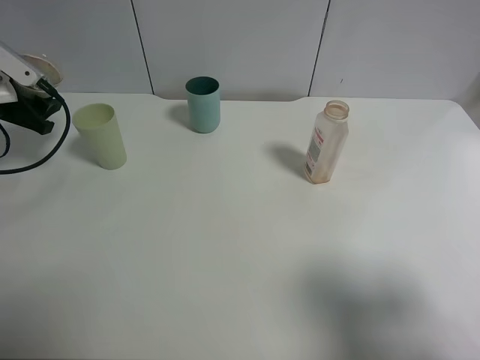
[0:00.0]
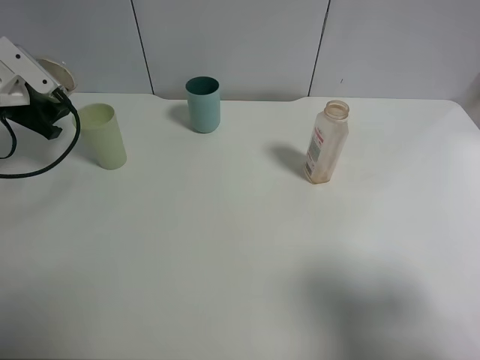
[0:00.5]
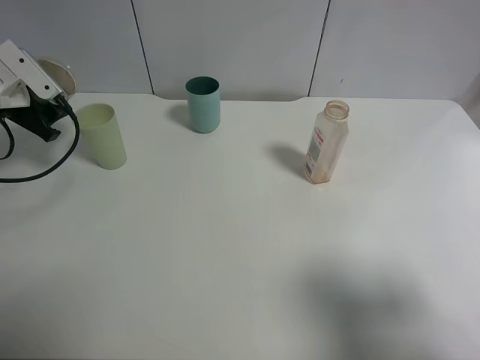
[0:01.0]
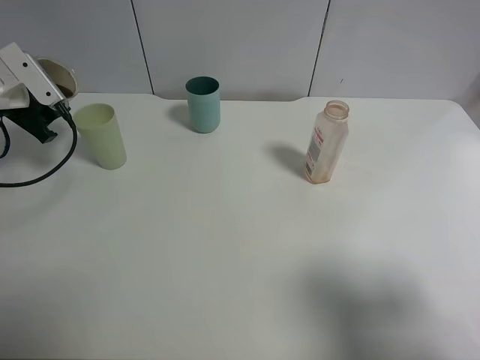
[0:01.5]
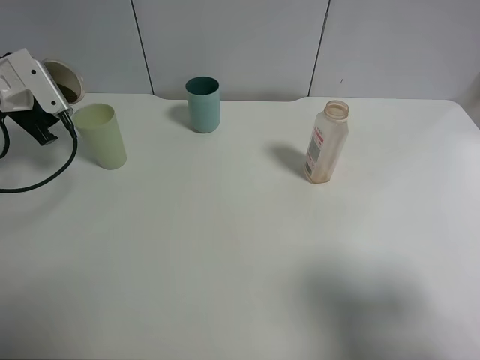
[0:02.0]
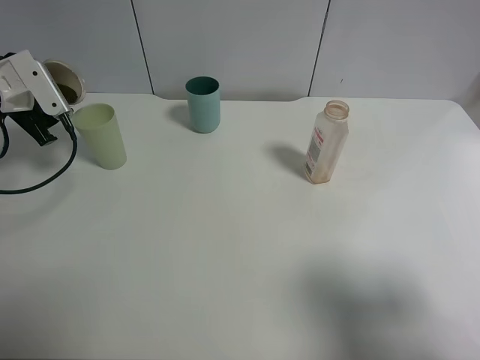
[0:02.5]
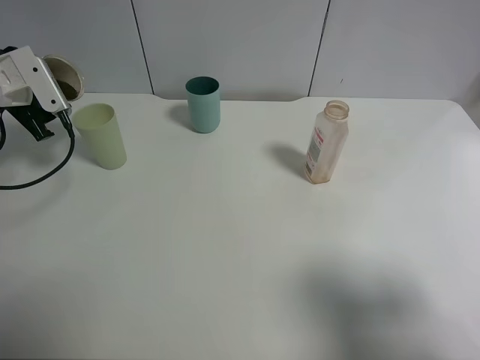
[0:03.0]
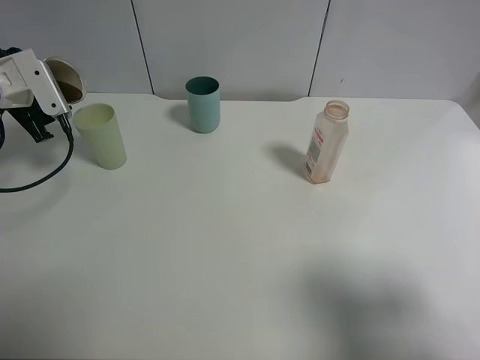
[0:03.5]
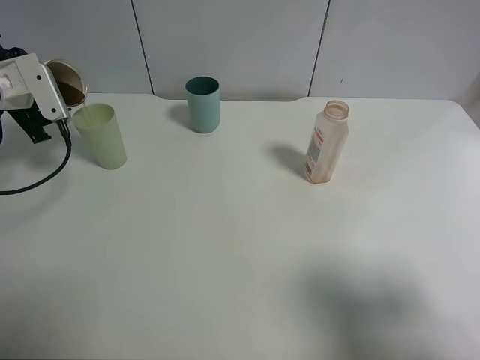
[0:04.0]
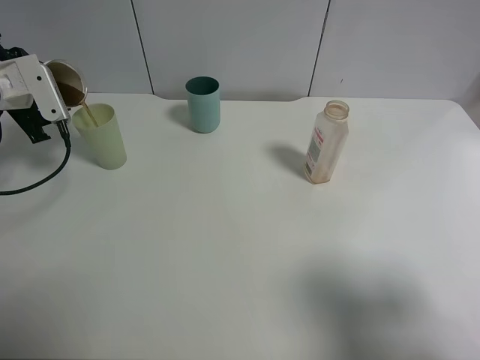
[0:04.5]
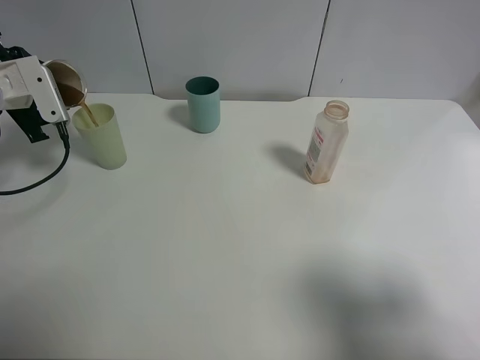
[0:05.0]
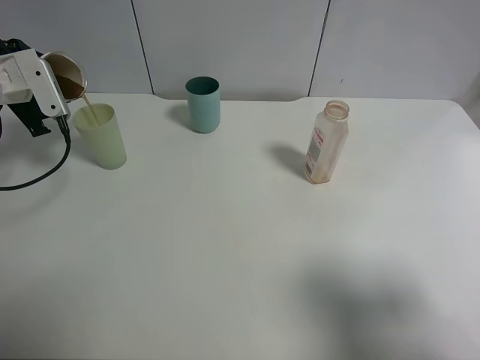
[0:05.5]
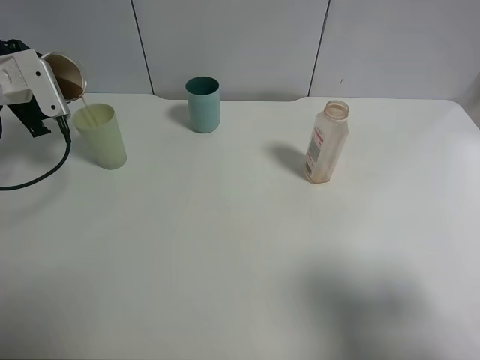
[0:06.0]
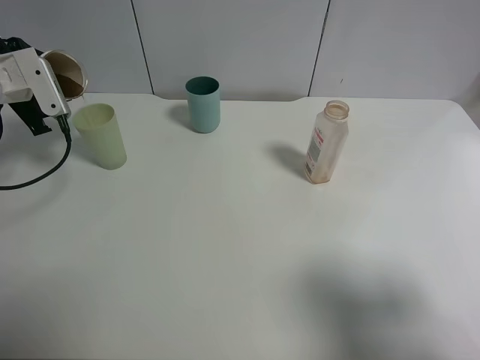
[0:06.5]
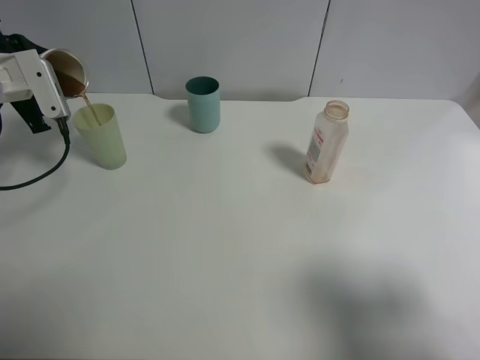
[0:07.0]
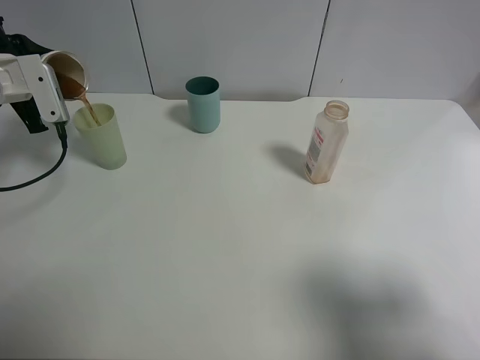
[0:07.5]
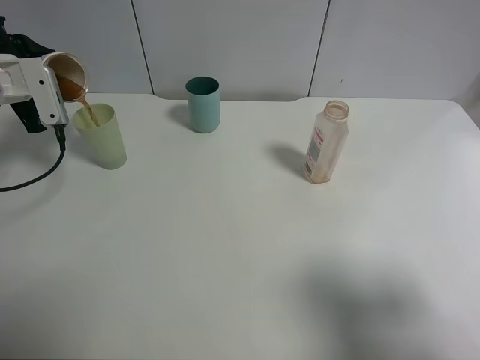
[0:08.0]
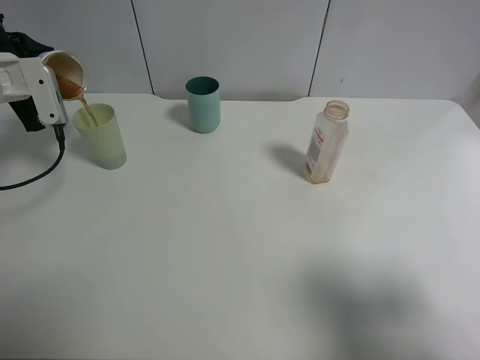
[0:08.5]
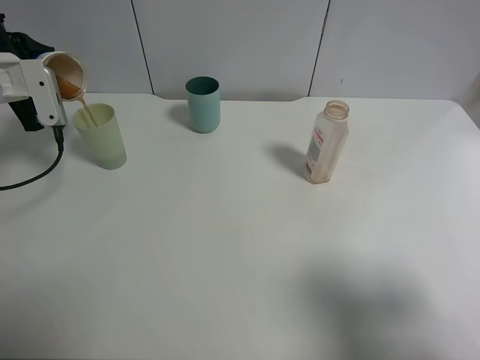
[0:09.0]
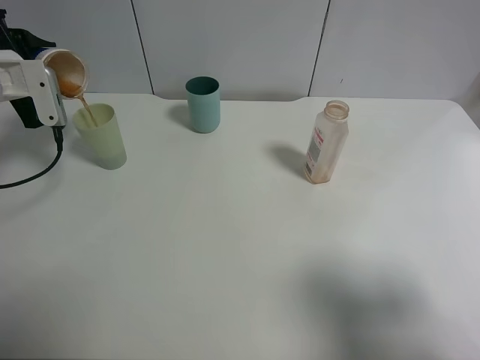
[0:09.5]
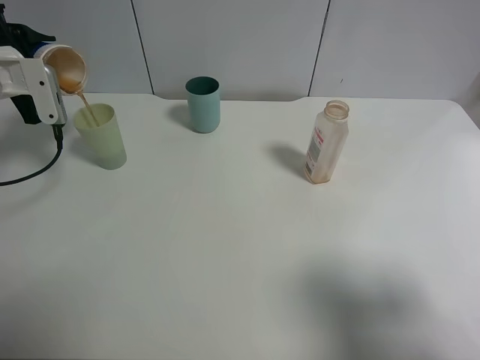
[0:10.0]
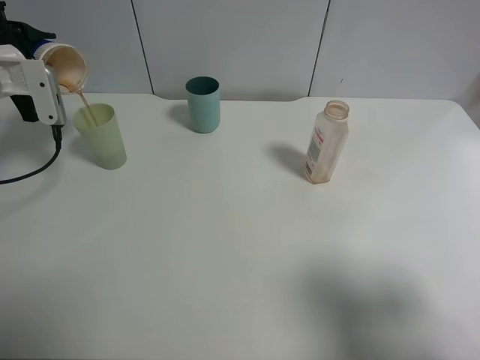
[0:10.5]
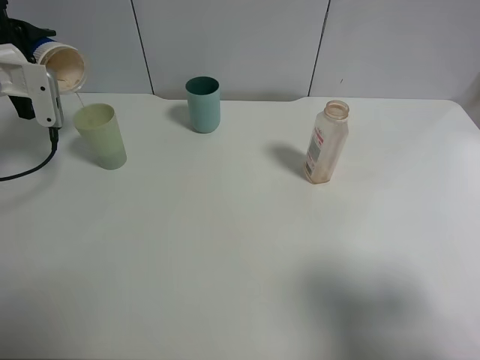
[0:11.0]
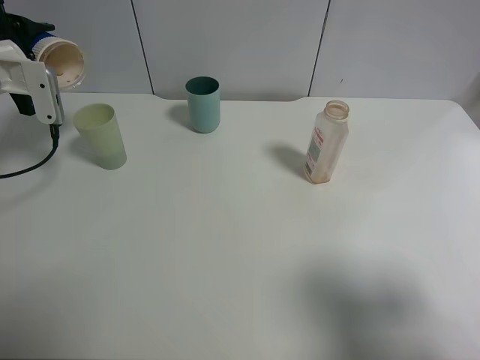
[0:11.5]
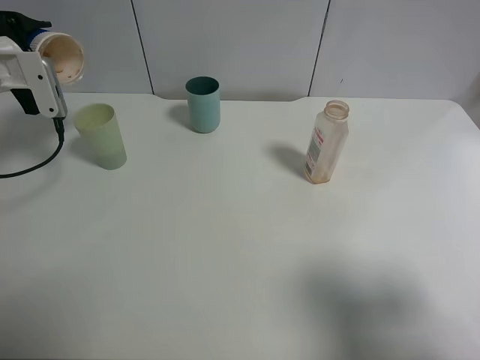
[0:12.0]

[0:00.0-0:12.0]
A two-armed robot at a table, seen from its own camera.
Task of the whole recording: use a clamp to hold the bottle of the drink, pour the beverage into a random cup, then clamp the cup containing the drink and pour the drink into another random cup.
0:02.0 to 0:04.0: There are only small adjustments of the grippers.
0:04.0 to 0:06.0: Both grippers stay put.
0:06.0 to 0:08.0: There are only small adjustments of the grippers.
0:08.0 to 0:12.0: The grippers make only small movements.

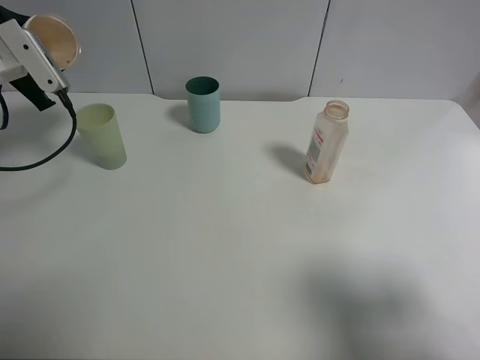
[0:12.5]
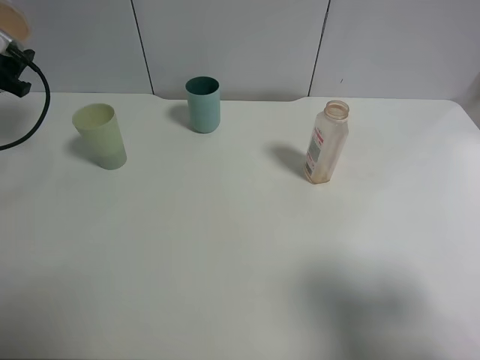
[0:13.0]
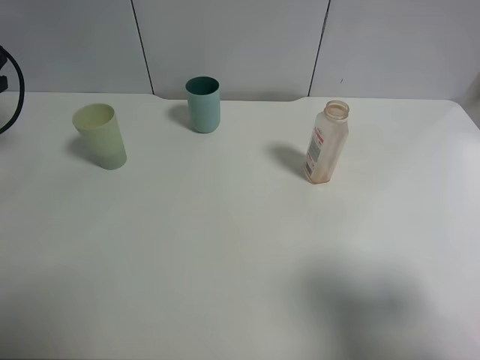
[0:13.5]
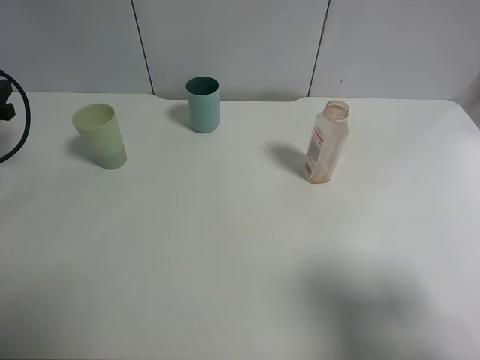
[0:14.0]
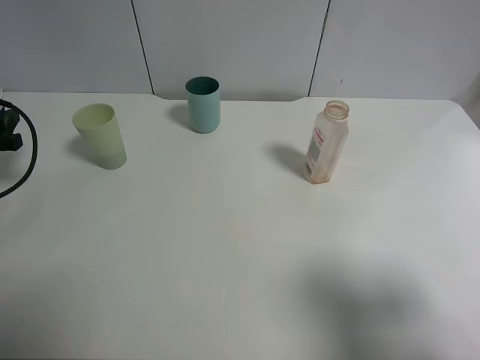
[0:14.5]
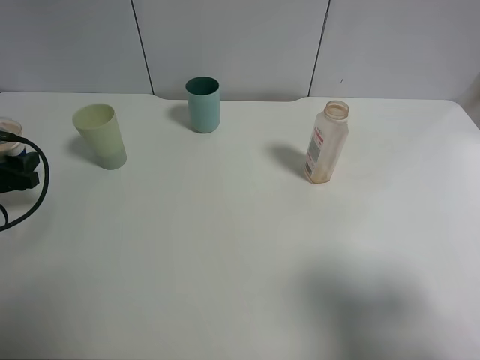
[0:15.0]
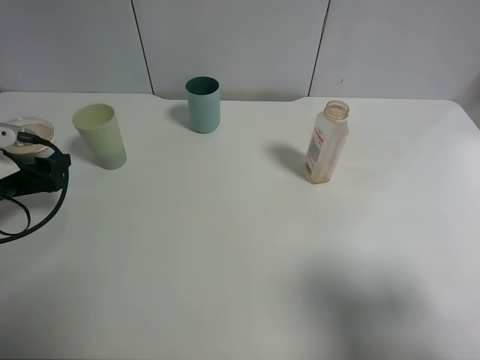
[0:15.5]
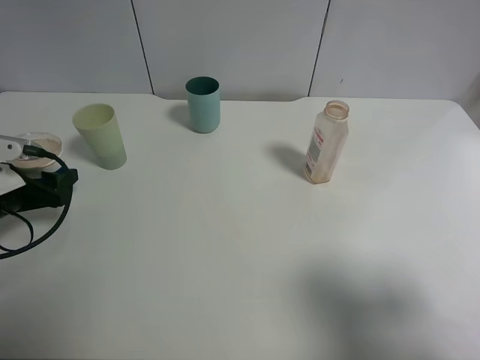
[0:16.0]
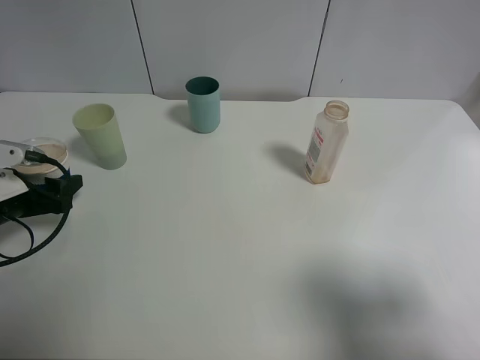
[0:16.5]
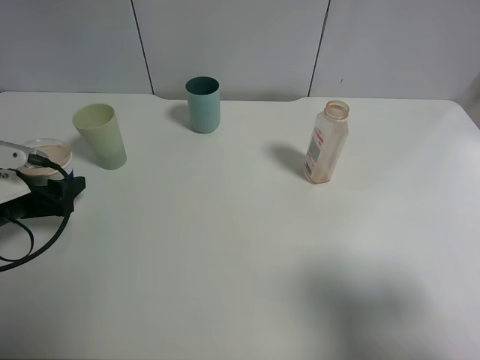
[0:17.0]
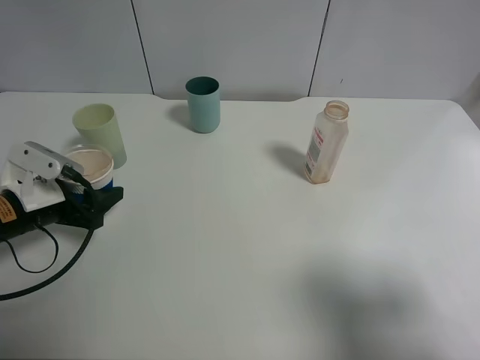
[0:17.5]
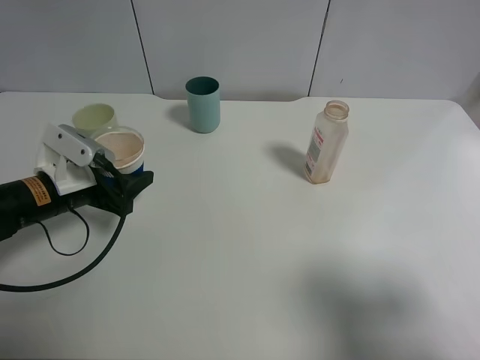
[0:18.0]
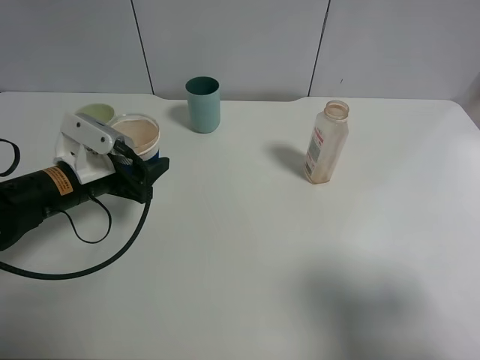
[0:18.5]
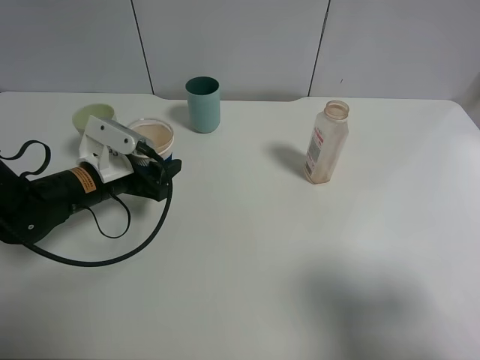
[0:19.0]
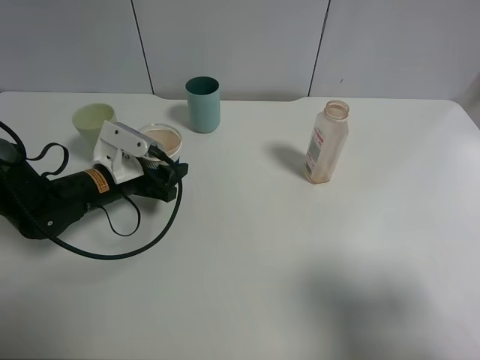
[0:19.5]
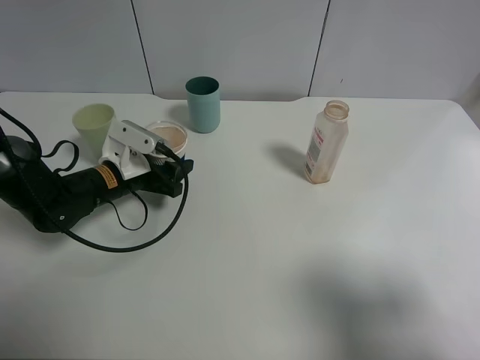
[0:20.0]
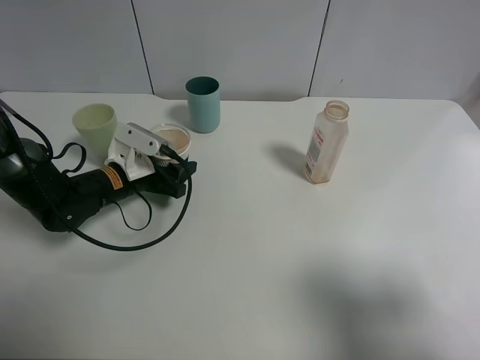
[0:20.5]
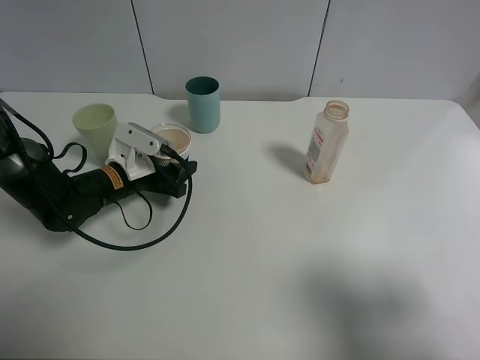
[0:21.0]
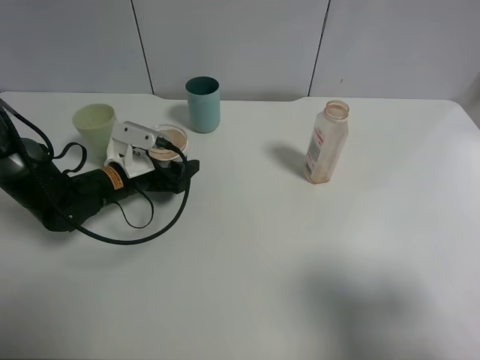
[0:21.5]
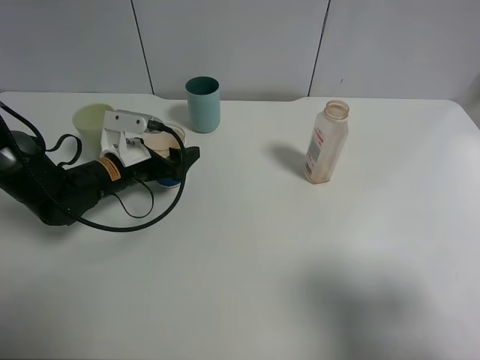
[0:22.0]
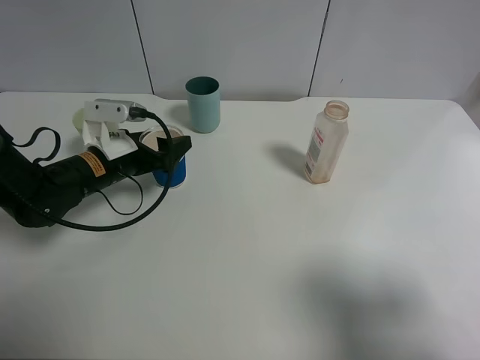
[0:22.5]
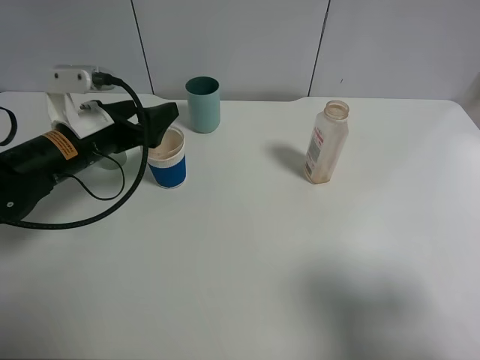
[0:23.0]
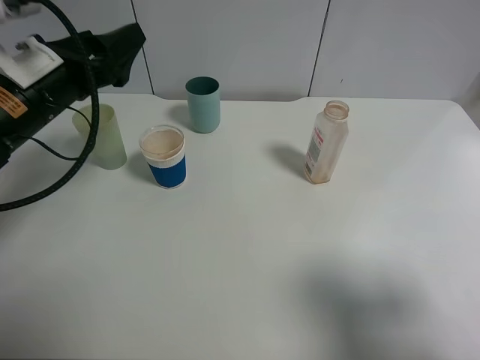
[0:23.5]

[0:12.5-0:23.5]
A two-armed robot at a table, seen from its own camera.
Task of the whole recording: use a clamp to hold the bottle of the drink, pour the beverage into a random cup, then clamp the cup containing the drink and pour the drink into another random cup.
Step, 0:12.5 to 0:21.5: Place the paper cup on the table with left gripper.
0:12.5 to 0:14.5: The left gripper moves backward and downward, roughly 10 cm.
0:14.5 to 0:16.0: The left gripper moves to the right and downward, about 10 cm.
0:16.0 to 0:18.0: The left gripper goes some 10 cm to the right.
0:18.0 to 0:20.0: The left gripper moves forward, about 5 cm.
0:20.0 to 0:21.5: The left gripper opens its fingers.
0:21.5 to 0:23.5: The left gripper goes about 20 cm upward.

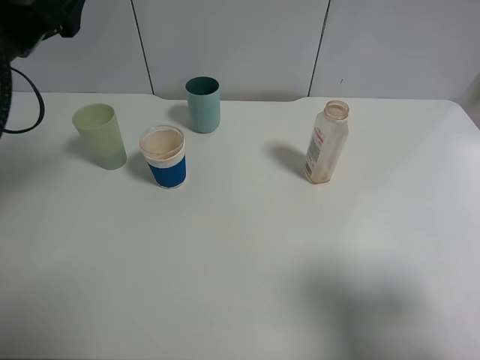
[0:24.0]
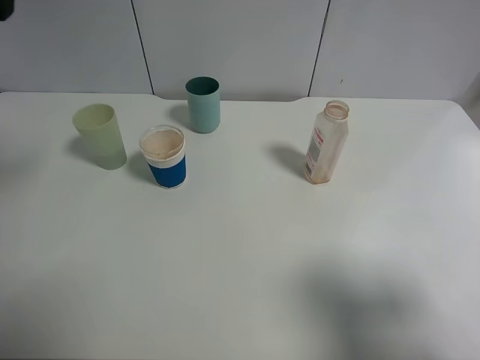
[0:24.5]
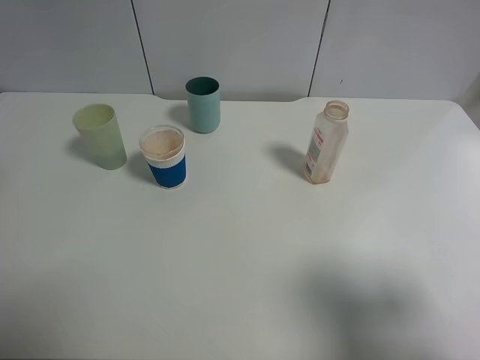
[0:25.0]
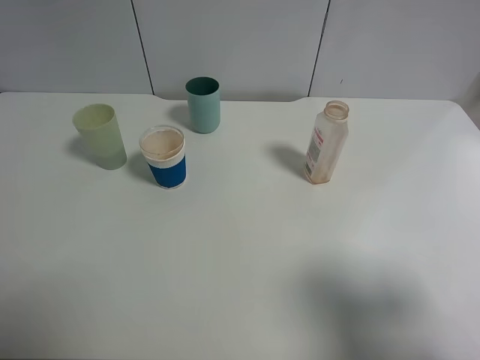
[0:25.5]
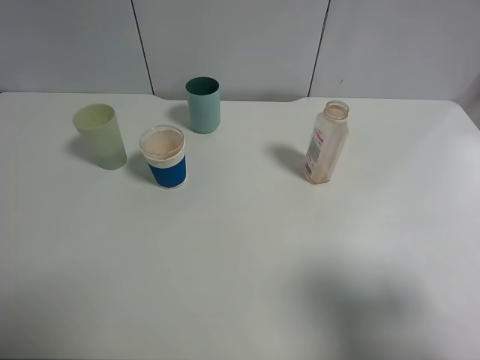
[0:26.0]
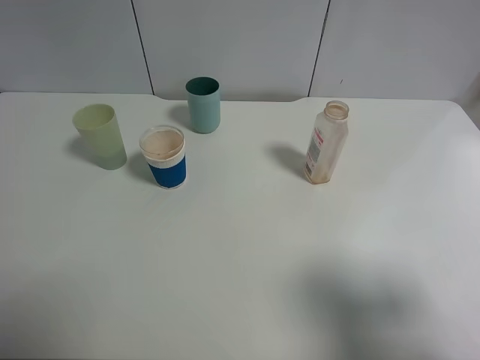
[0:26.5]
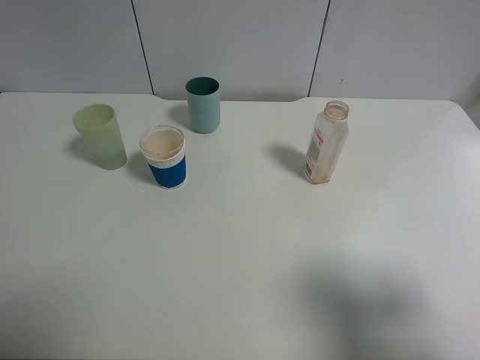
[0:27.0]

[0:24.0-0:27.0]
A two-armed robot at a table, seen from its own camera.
Task of the whole recording: use a clamp to hold the bottle of the drink, pour the beverage into a random cup, then clamp the cup containing the drink and pour the drink into another random cup.
0:24.0 to 0:25.5: The left gripper goes some 15 cm backward and to the left.
